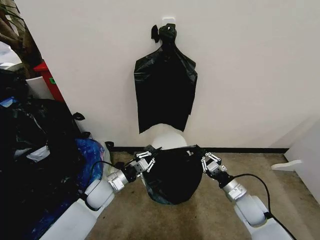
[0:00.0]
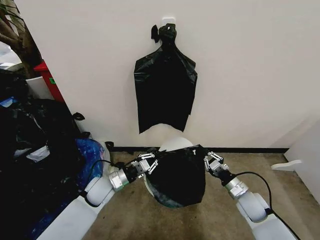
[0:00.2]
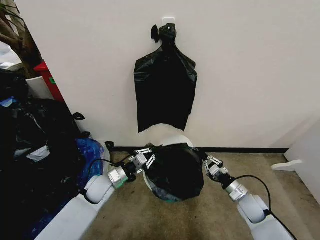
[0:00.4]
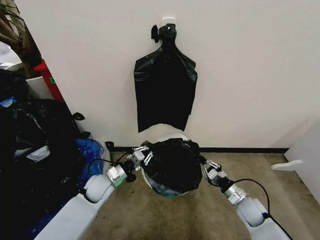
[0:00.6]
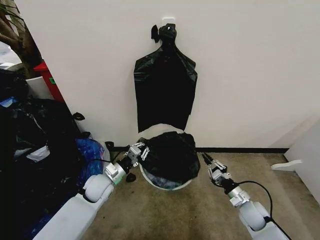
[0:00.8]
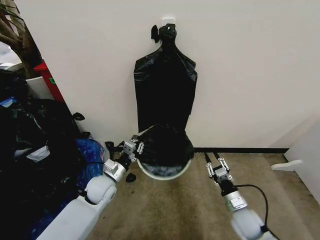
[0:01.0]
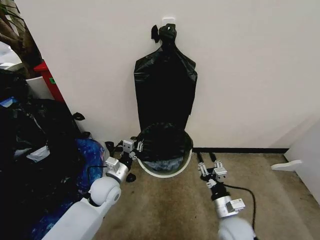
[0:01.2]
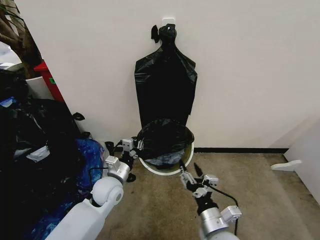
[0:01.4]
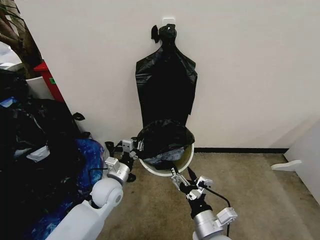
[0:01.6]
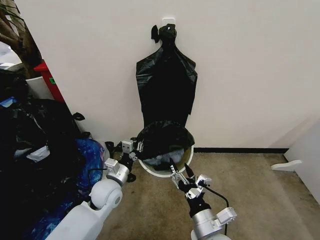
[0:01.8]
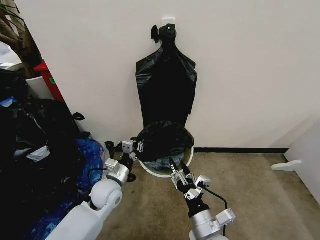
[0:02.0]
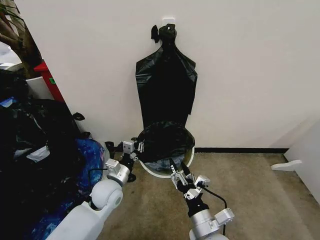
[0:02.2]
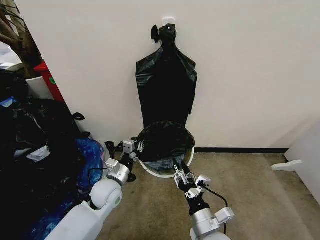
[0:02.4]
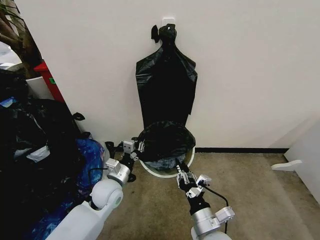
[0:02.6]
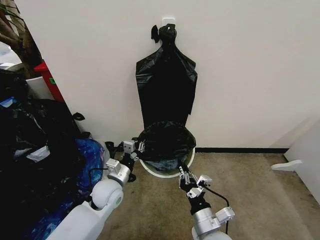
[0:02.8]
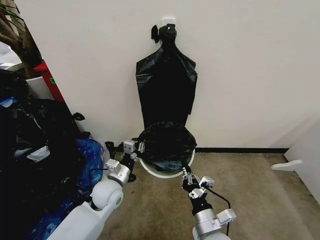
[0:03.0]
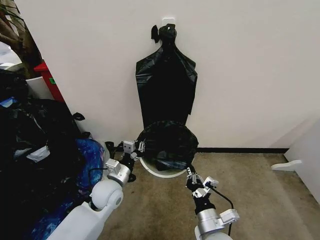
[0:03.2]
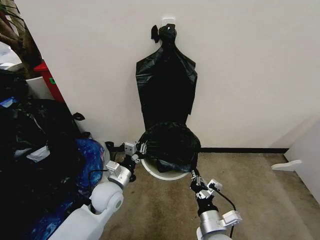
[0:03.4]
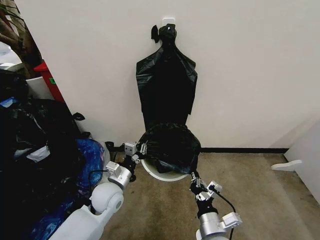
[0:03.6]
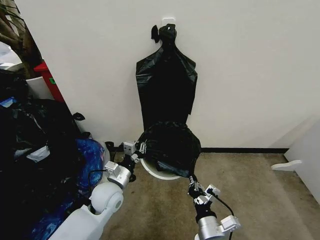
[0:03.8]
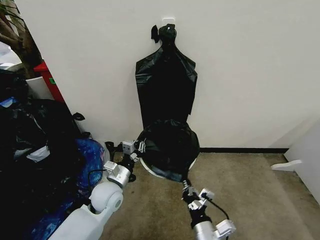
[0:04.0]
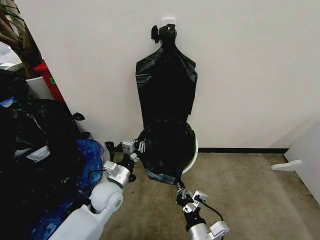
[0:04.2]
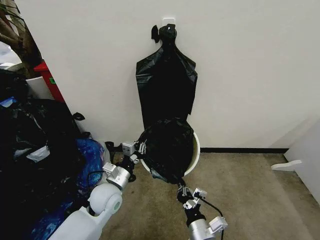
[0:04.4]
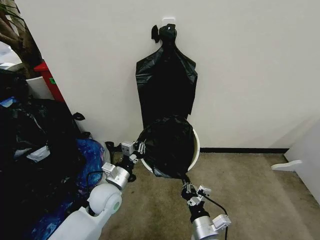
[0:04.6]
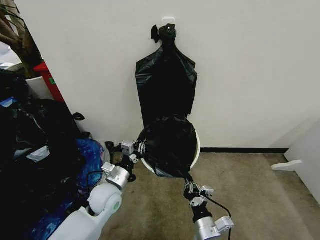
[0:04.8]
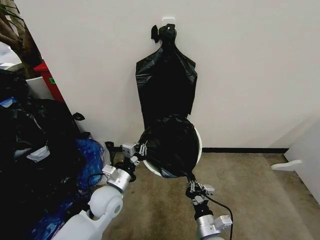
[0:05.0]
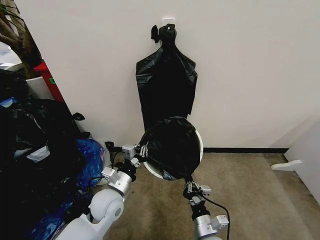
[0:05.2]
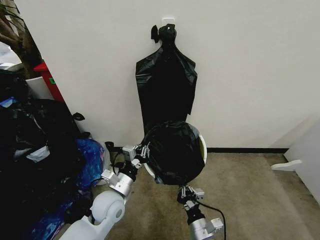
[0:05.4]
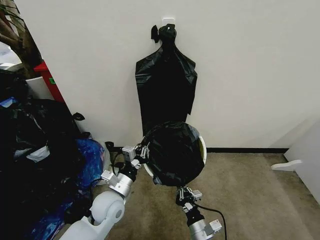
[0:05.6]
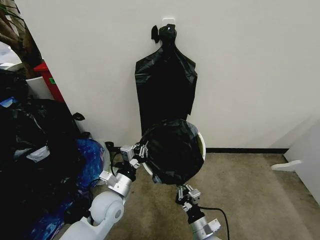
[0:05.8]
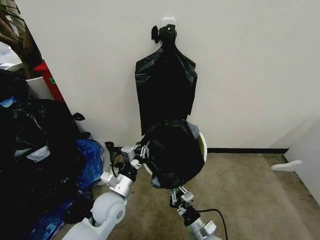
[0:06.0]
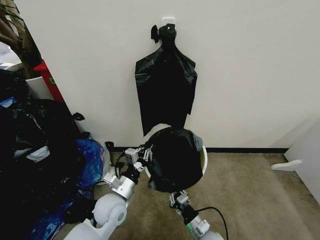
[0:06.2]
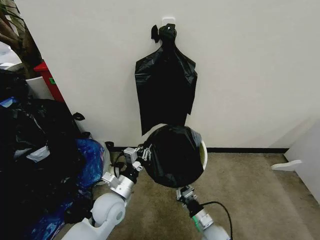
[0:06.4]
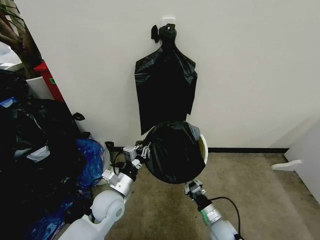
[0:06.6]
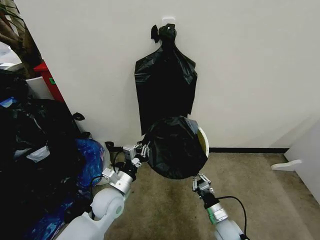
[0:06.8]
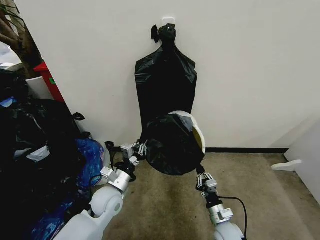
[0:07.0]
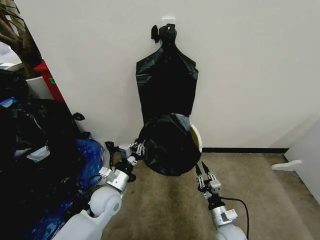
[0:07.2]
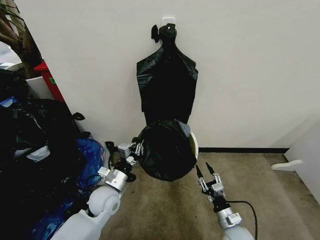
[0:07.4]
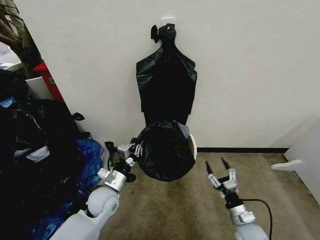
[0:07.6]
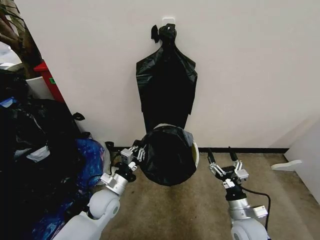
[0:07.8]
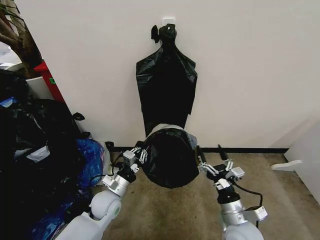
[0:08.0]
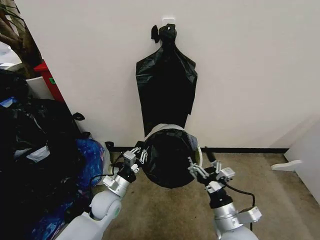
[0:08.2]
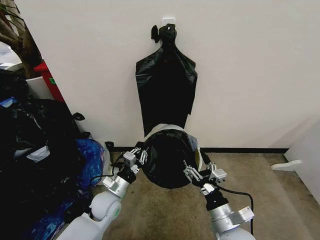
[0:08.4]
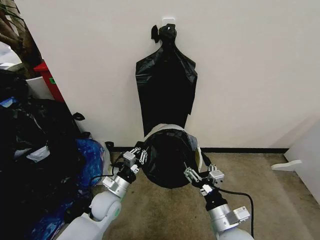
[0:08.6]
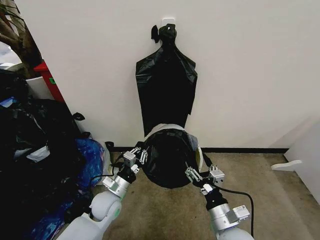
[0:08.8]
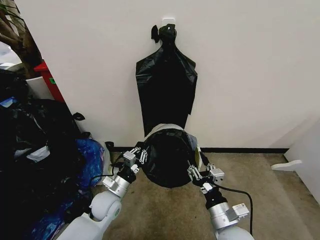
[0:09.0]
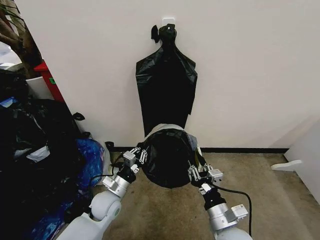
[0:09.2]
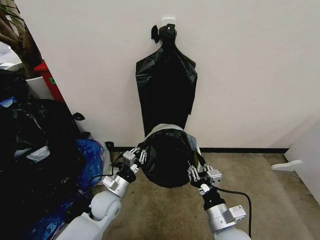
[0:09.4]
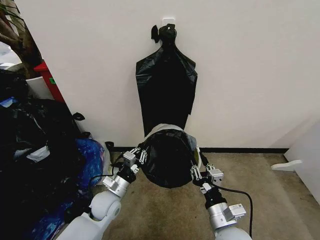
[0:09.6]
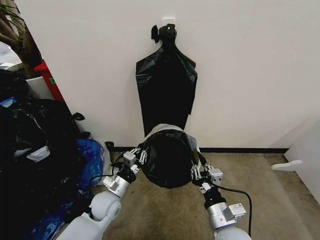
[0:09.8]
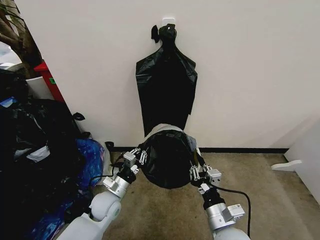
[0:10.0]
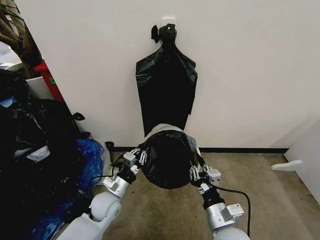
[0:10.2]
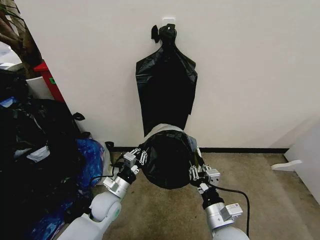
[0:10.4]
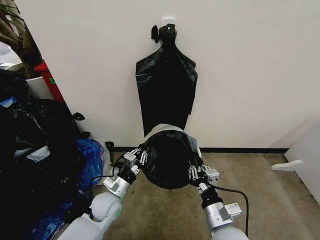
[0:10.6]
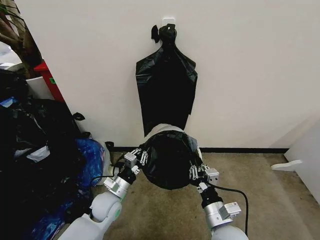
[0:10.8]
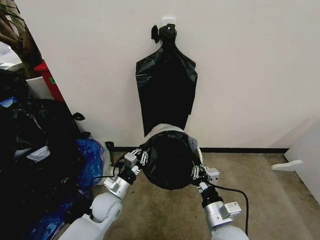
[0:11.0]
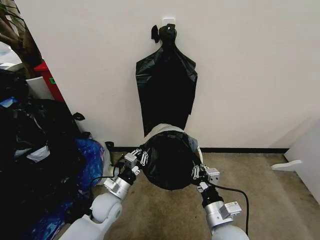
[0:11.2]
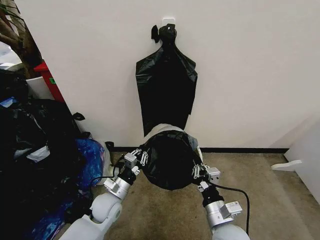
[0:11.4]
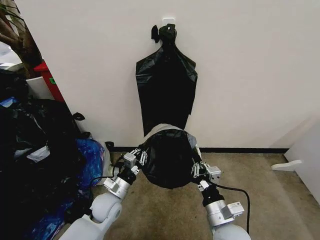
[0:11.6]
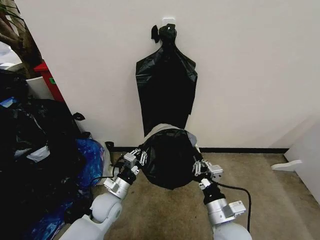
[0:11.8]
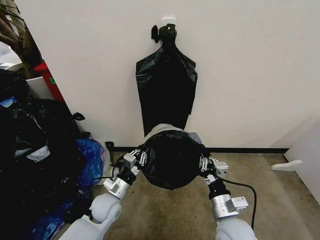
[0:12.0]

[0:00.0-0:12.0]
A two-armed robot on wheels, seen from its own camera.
Task of the whole recording: Place the garbage bag over the trash bin.
0:00.0 to 0:01.6: The left gripper changes place by some 5 cm; the right gripper goes some 25 cm to the left, backward and upward, and opens.
0:01.6 to 0:03.0: The right gripper closes up.
0:03.0 to 0:04.4: There are only small adjustments of the grippers.
0:04.4 to 0:06.0: The right gripper is displaced downward by some 10 cm.
0:06.0 to 0:07.6: The left gripper ends up roughly 5 cm from where it was; the right gripper is displaced to the right by about 15 cm, and opens up.
0:07.6 to 0:09.0: The right gripper is displaced upward and to the left by roughly 20 cm.
0:09.0 to 0:12.0: There are only small adjustments of the grippers.

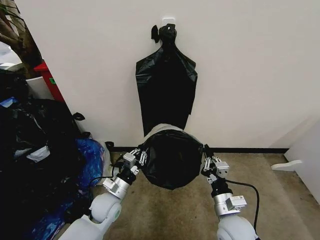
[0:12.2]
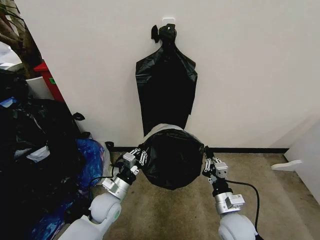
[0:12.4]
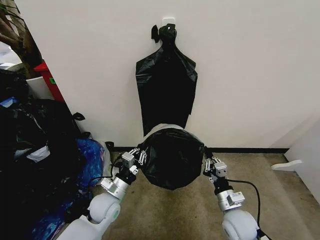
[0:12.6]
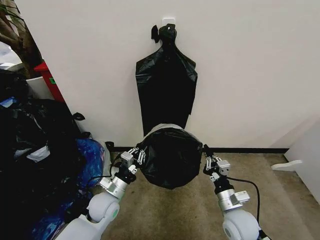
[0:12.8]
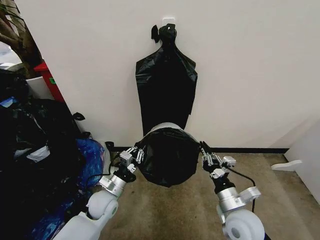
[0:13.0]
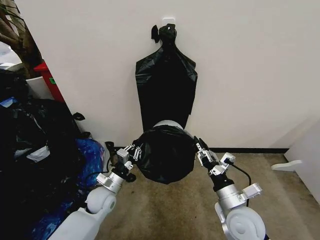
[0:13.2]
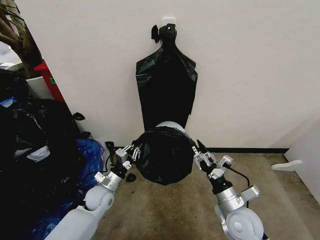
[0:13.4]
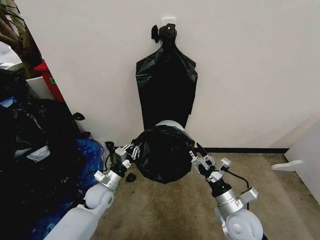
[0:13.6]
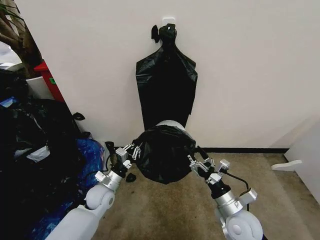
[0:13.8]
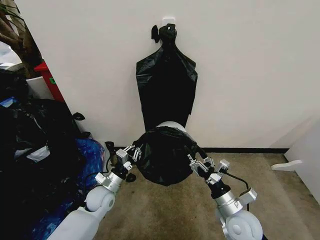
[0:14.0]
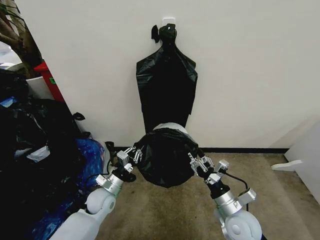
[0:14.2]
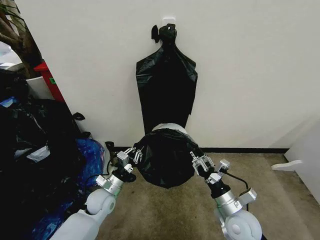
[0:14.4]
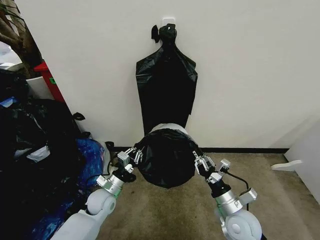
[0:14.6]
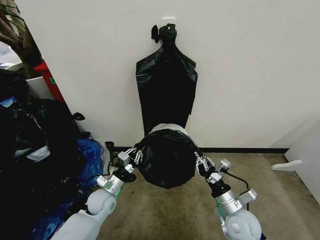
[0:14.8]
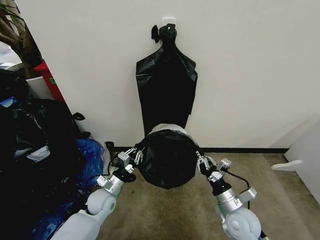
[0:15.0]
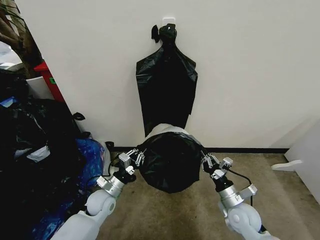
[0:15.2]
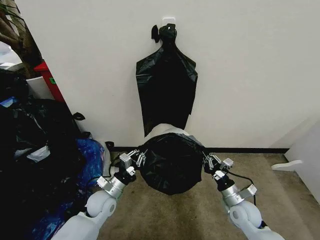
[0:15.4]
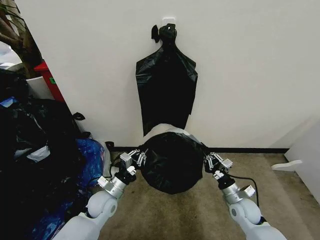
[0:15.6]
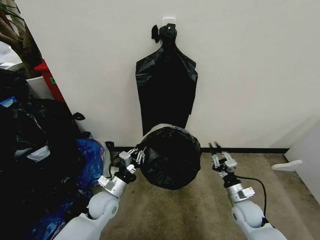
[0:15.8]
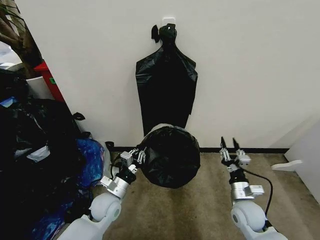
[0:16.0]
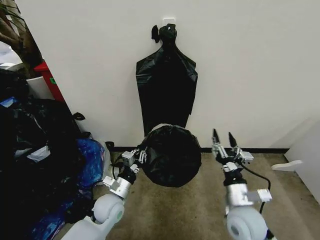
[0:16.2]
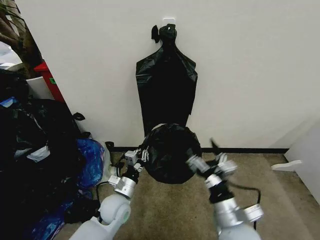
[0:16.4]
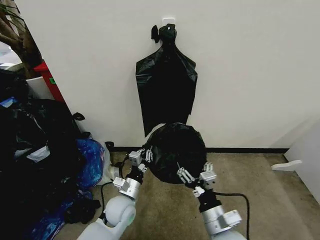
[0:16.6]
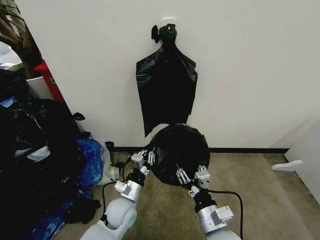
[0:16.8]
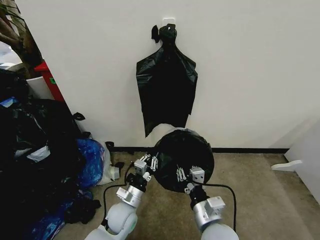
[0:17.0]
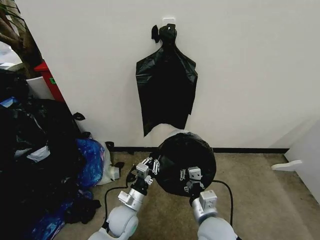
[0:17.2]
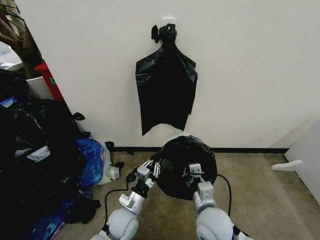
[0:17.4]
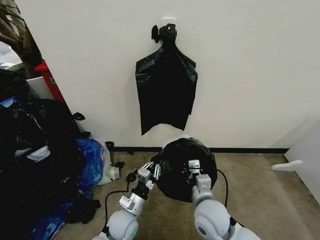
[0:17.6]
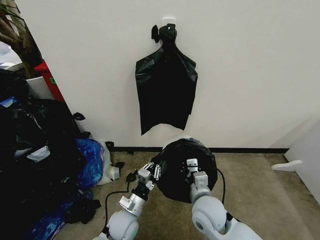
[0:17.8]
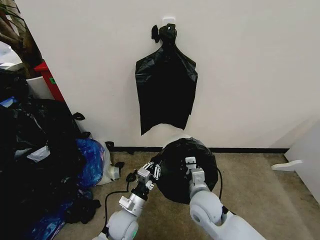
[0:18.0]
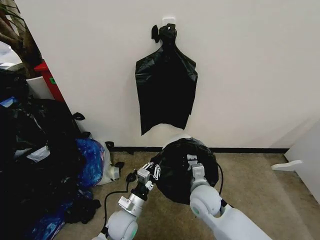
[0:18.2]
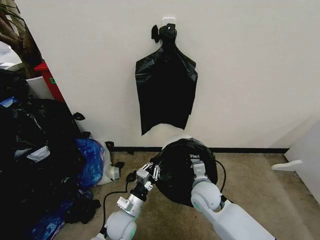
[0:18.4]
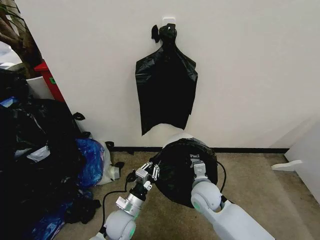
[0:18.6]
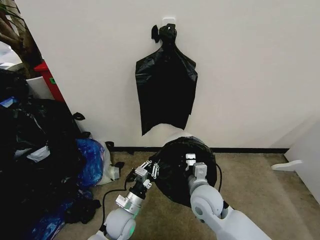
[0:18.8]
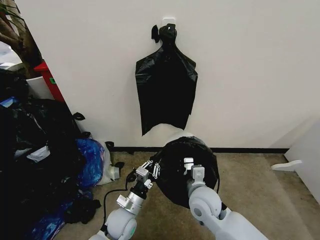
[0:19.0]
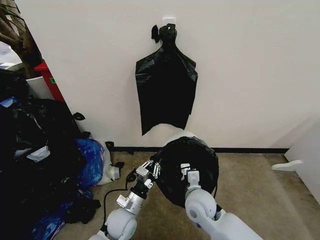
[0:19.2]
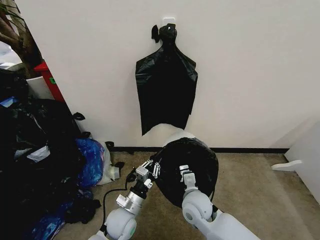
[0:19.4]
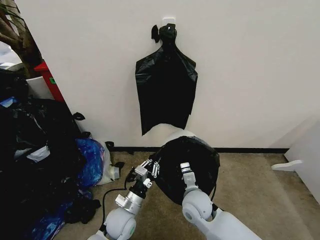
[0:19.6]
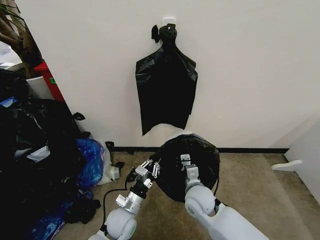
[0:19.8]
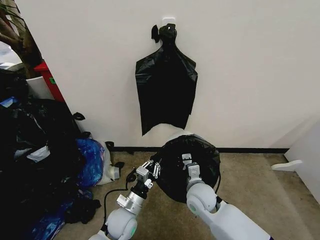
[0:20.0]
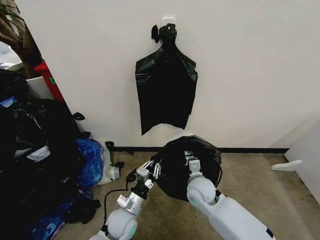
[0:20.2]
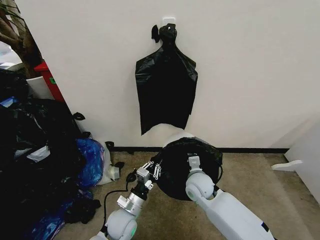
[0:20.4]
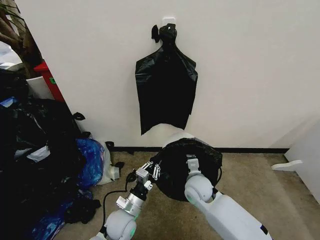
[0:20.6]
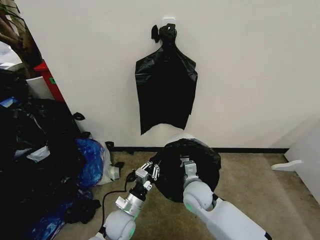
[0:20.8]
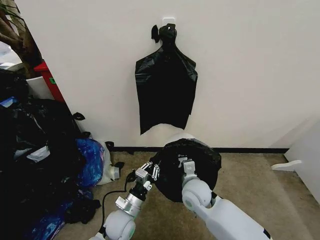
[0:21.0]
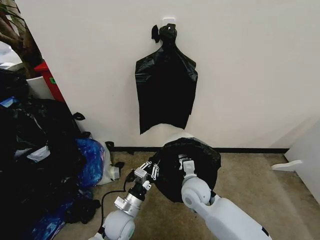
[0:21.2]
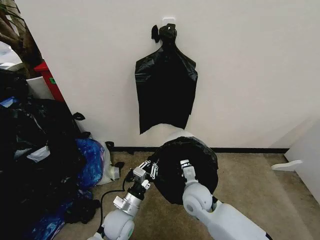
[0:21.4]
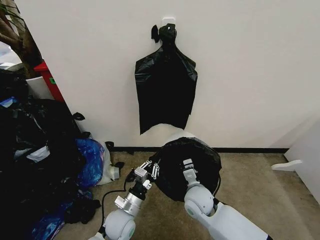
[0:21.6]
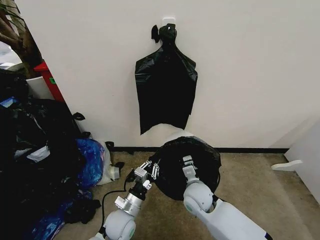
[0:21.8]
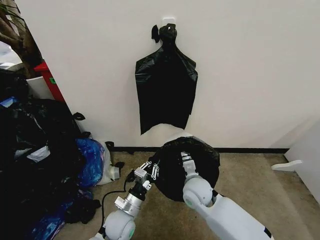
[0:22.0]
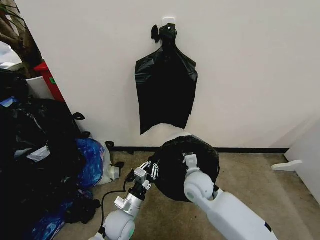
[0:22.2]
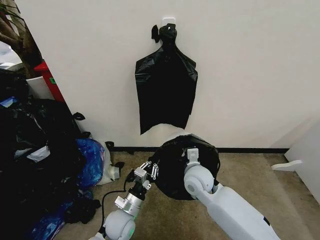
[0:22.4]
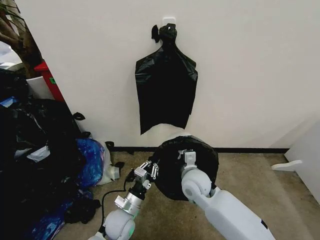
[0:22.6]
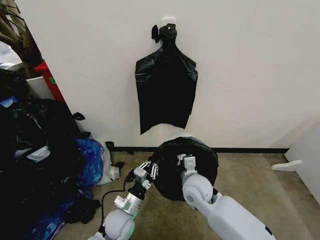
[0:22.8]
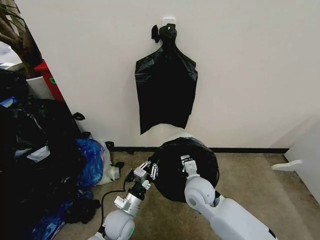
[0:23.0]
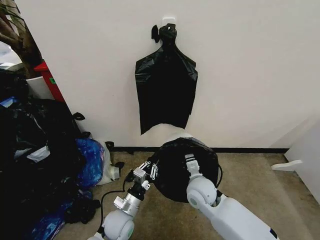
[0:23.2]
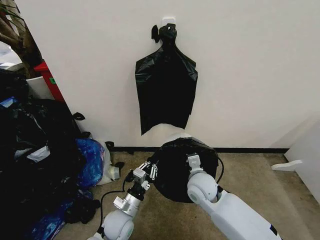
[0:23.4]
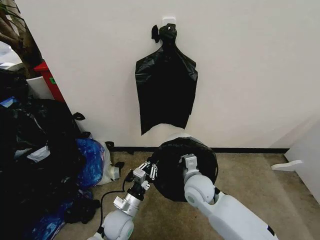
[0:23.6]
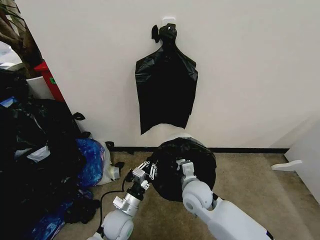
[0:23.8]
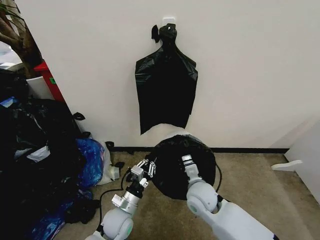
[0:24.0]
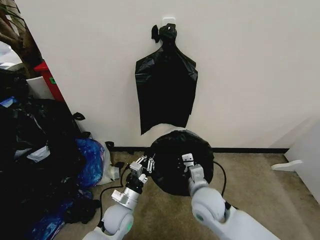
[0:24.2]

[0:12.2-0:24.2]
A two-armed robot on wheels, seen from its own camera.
Task of the whole recording: Place the garbage bag over the trash bin.
0:12.2 to 0:13.8: The right gripper goes up and down, approximately 10 cm each way, reversing 2 times, and opens its fingers. Meanwhile the left gripper shifts by about 5 cm.
0:13.8 to 0:15.2: The right gripper shifts by some 5 cm, and closes up.
0:15.2 to 0:16.6: The left gripper goes some 10 cm to the right. The right gripper is displaced to the left, backward and upward by some 15 cm, and opens its fingers.
0:16.6 to 0:18.2: The right gripper heads forward, covering some 15 cm, and closes up; the left gripper ends up approximately 5 cm from where it was.
0:18.2 to 0:21.2: The grippers make only small movements.
0:21.2 to 0:22.6: There are only small adjustments of the grippers.
0:22.6 to 0:24.2: The right gripper shifts some 5 cm backward.
